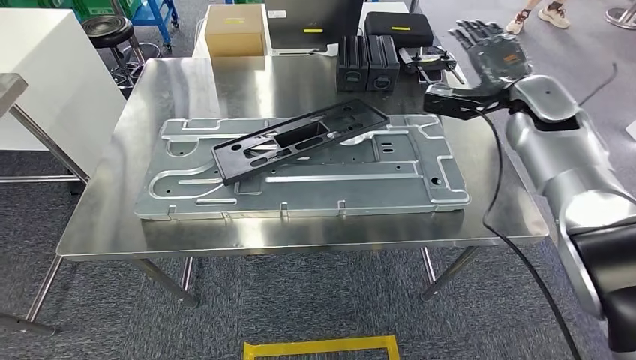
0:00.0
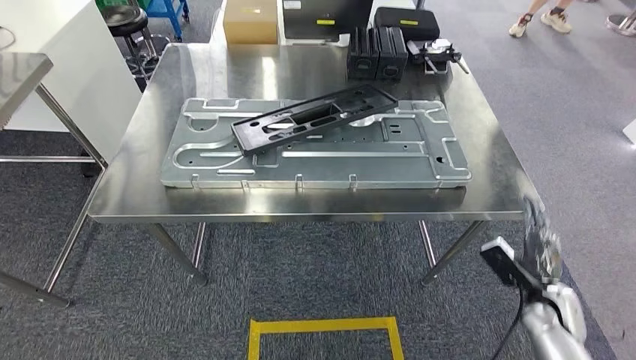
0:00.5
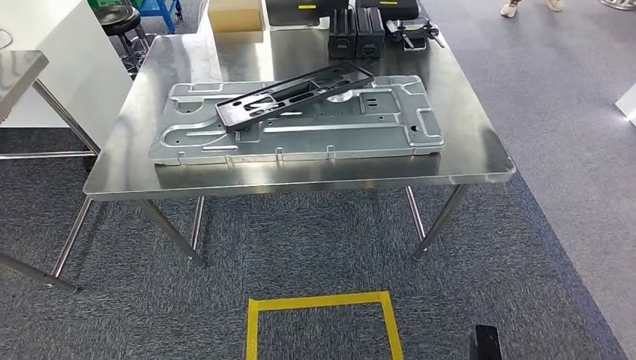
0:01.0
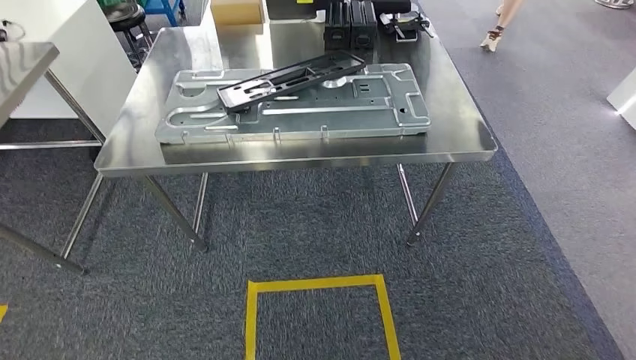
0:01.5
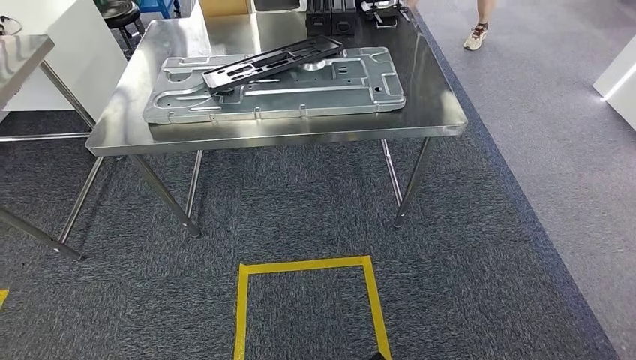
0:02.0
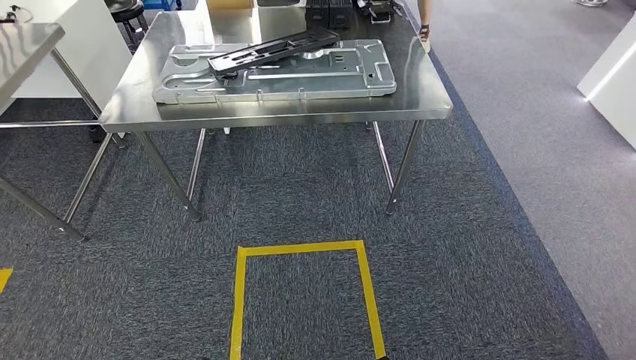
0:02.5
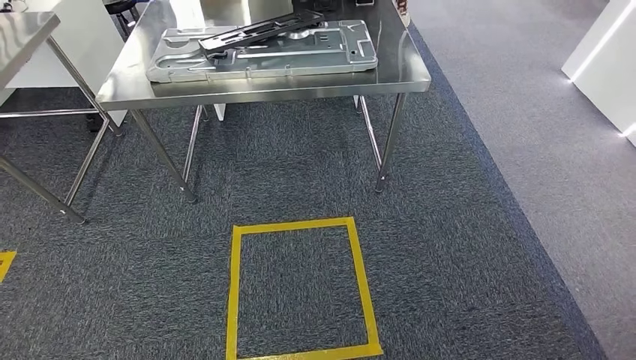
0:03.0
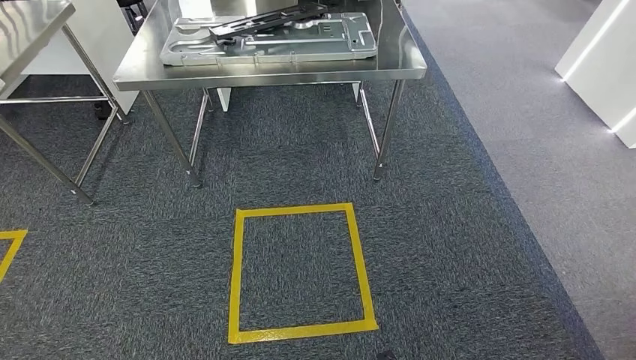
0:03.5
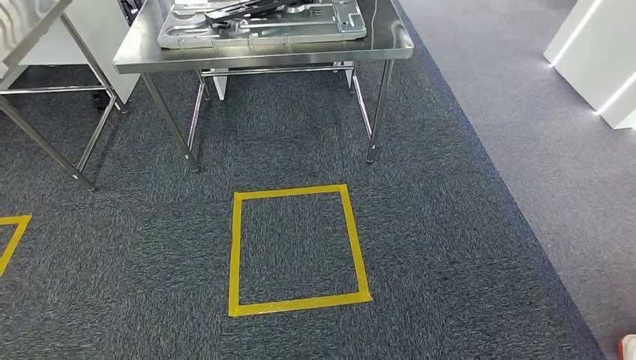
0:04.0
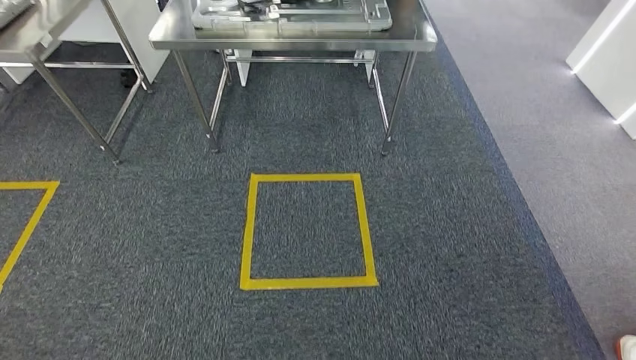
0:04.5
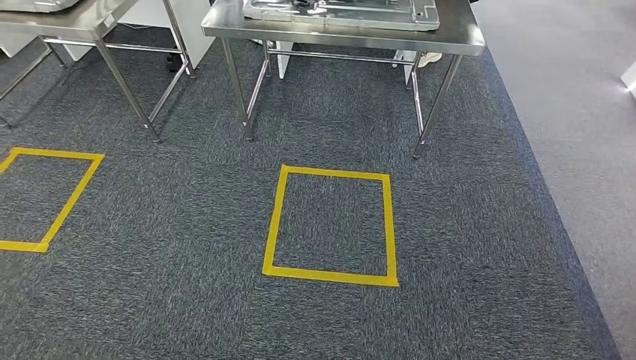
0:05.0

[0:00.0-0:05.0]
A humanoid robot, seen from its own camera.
Step, 0:01.0 to 0:05.0: Move to the initial position of the shelf.
